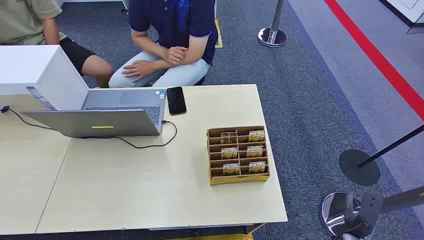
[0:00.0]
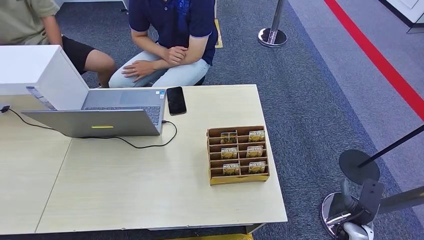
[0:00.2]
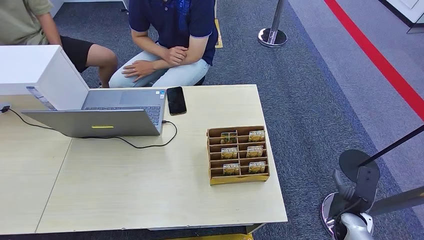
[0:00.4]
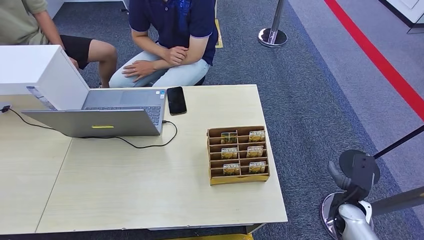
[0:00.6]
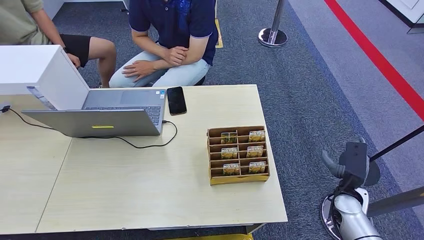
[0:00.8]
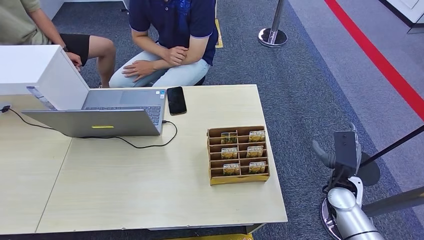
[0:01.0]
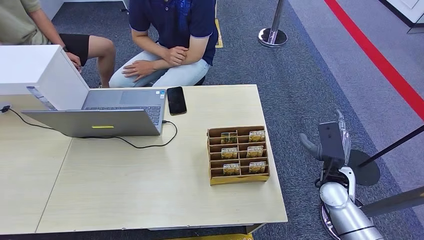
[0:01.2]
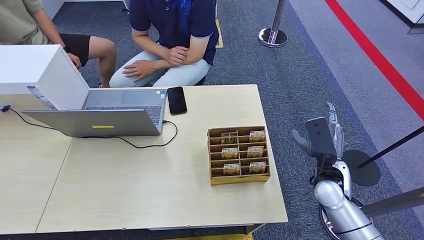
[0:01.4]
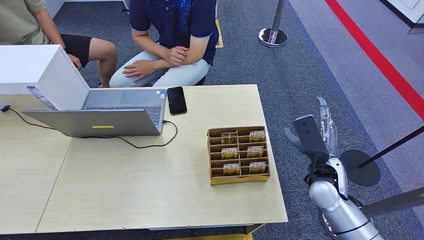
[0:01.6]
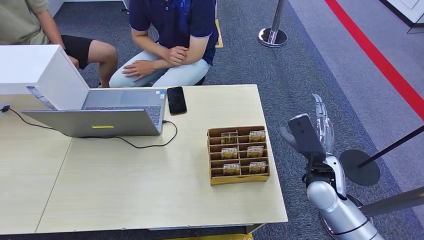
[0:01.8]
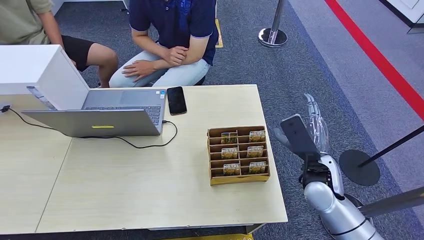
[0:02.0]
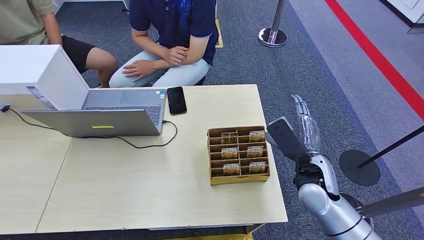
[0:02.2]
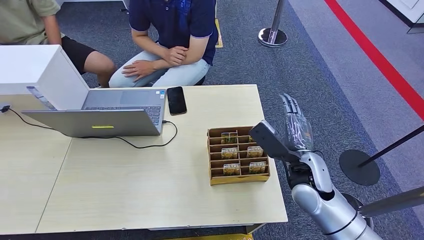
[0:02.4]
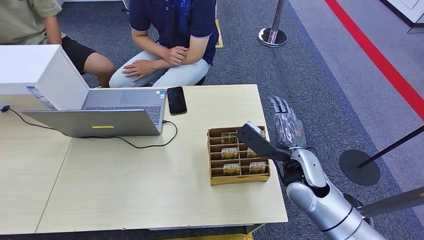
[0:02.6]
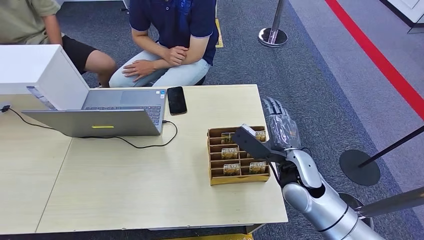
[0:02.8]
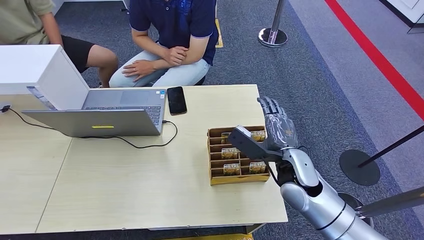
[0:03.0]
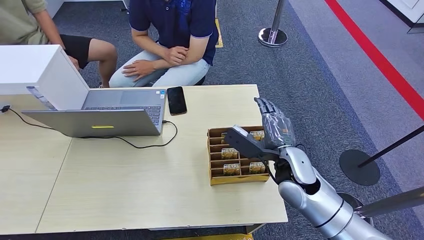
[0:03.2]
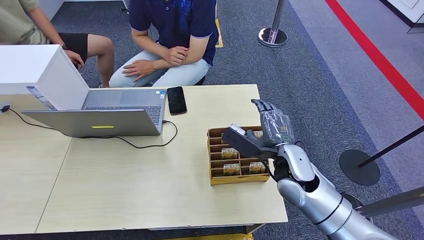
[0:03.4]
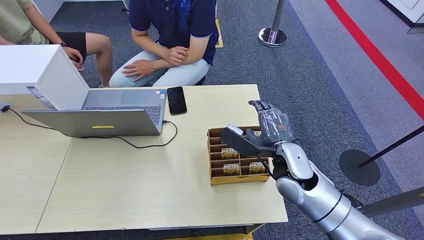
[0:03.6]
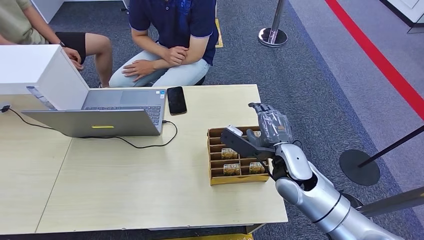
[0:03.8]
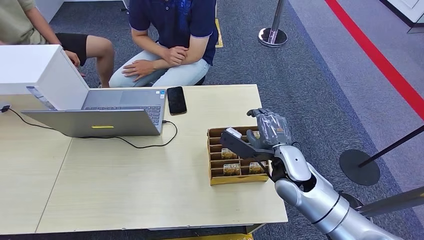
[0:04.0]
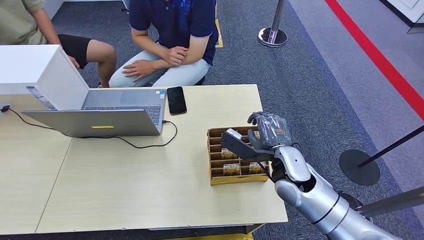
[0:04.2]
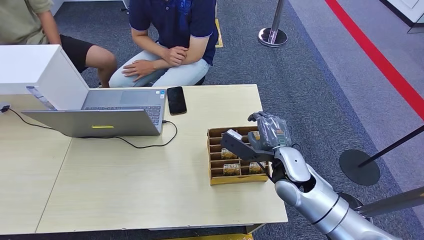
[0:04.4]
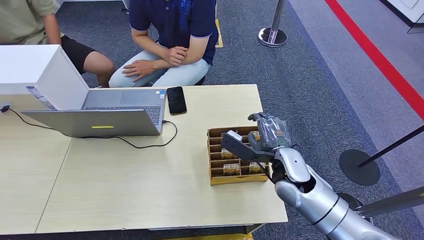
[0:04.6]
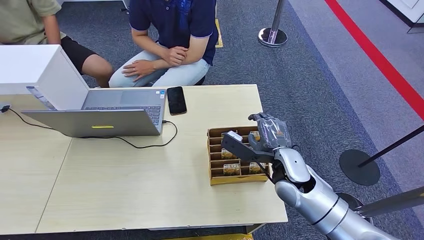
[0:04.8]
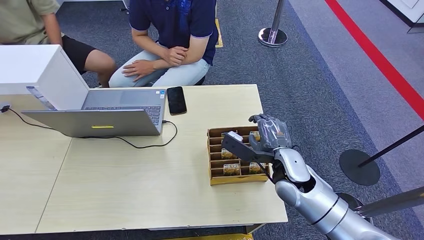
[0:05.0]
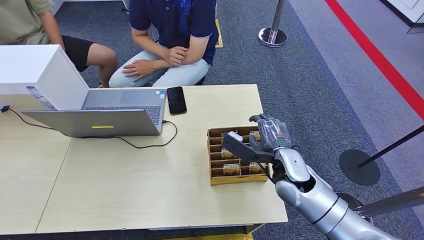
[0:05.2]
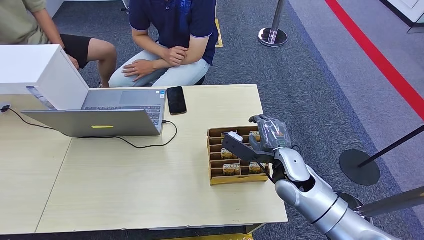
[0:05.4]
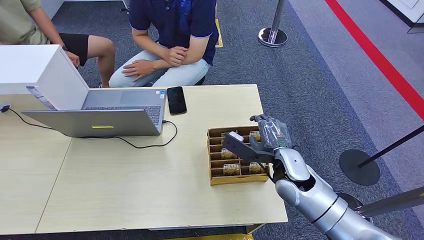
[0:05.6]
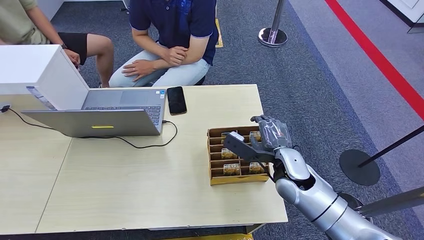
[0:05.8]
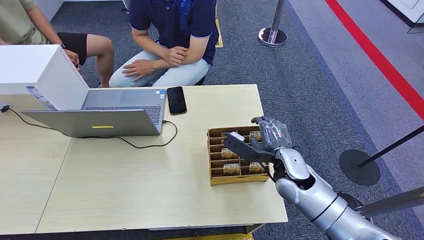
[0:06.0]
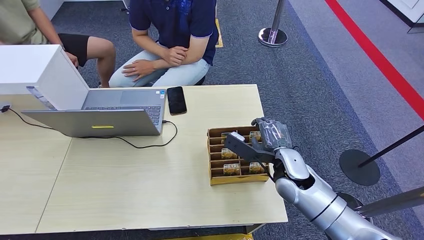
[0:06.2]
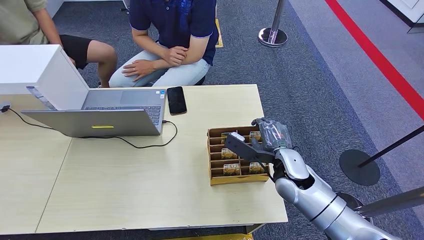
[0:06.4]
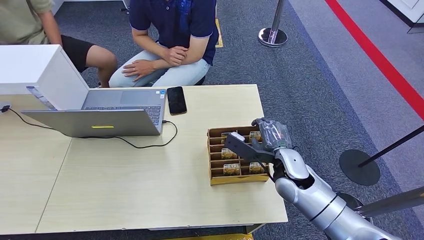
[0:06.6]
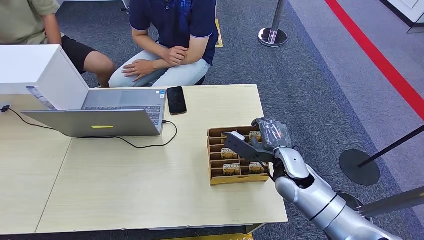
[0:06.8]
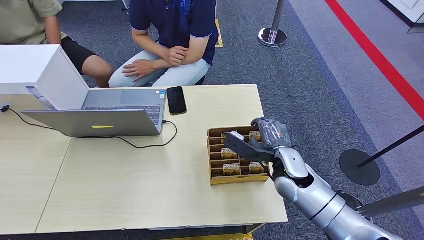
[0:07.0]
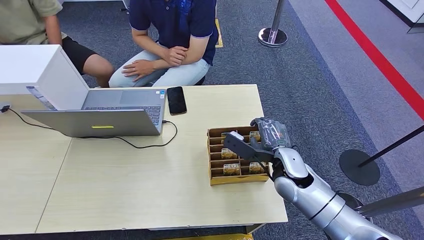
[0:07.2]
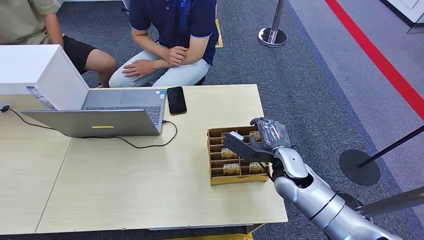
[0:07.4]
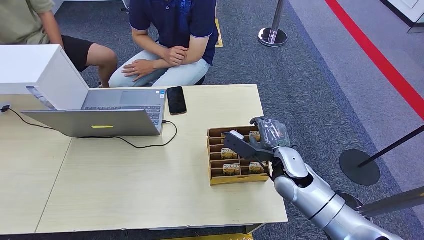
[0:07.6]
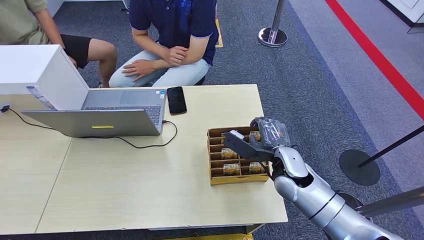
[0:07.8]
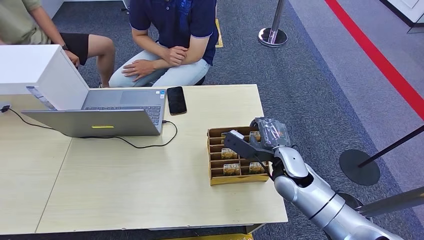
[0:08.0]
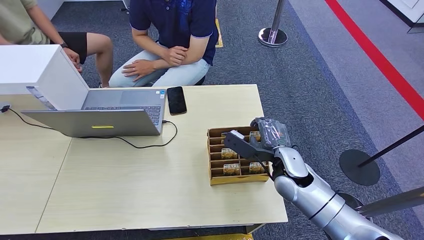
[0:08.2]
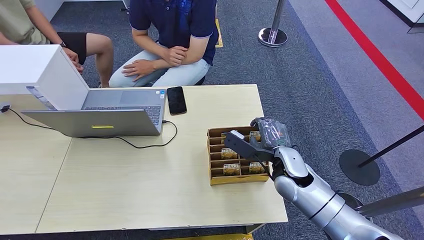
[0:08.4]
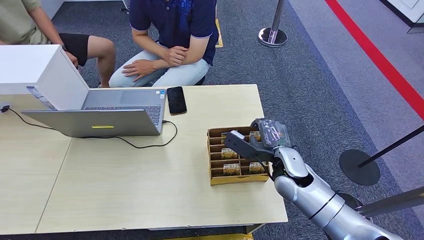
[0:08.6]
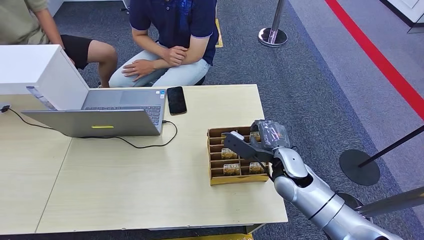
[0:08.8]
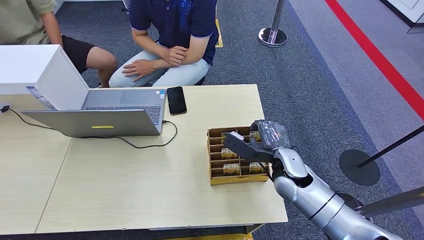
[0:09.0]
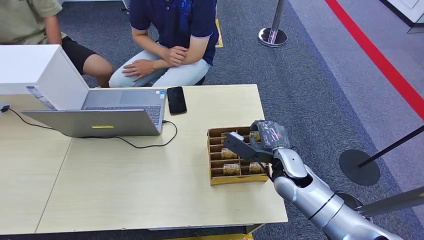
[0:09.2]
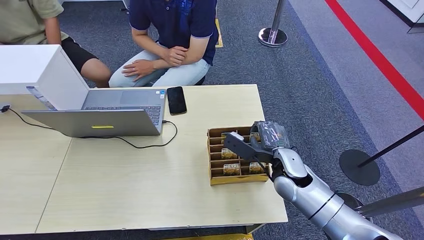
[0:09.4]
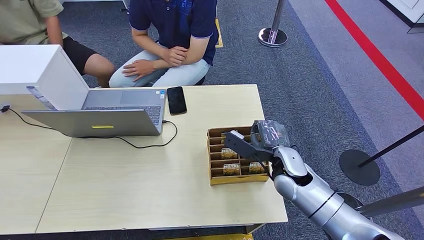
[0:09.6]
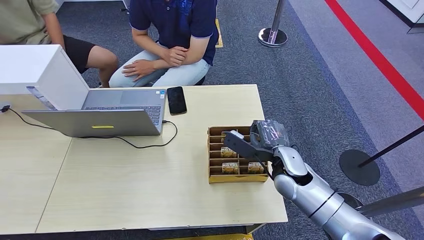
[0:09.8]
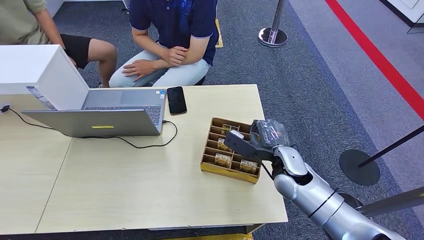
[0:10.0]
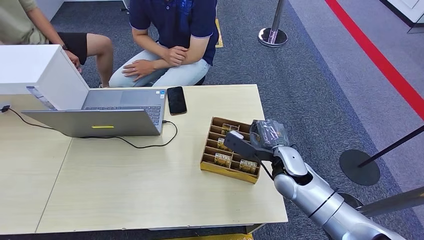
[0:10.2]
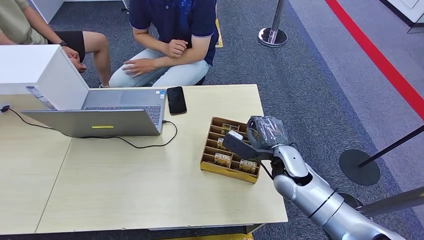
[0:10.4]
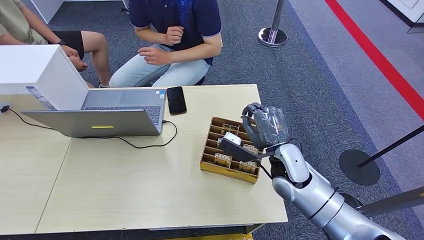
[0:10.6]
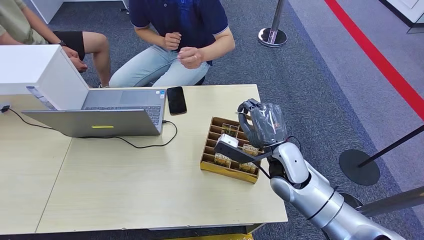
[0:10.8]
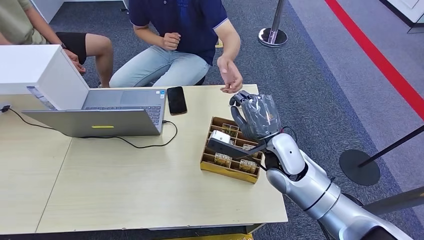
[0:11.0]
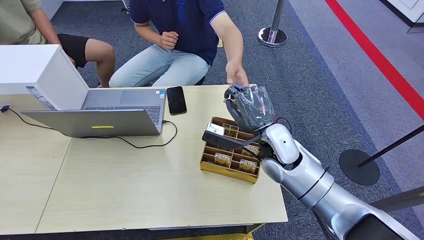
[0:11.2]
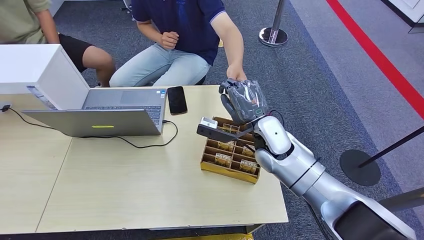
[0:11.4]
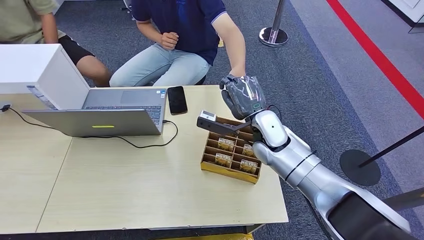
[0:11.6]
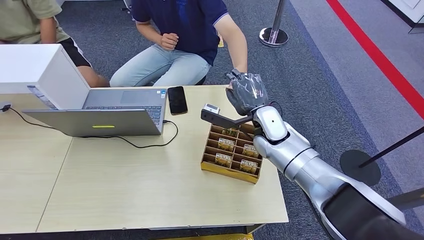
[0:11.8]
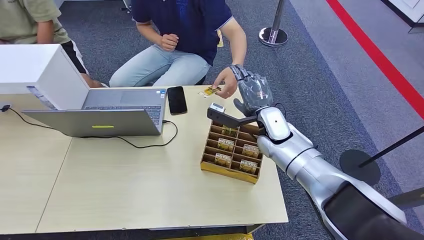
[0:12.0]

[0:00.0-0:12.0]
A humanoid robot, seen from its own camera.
Step, 0:00.0 to 0:11.0: Pick up the room card from the card holder.
Step, 0:11.2 to 0:11.8: Hand the room card to the target.
0:01.6 to 0:03.0: The right hand shifts some 5 cm to the left.
0:03.0 to 0:06.0: The hands make only small movements.
0:06.0 to 0:09.0: Neither hand changes place.
0:09.0 to 0:10.4: The right hand ends up roughly 5 cm from where it was.
0:10.4 to 0:12.0: The right hand heads forward, covering roughly 10 cm.
